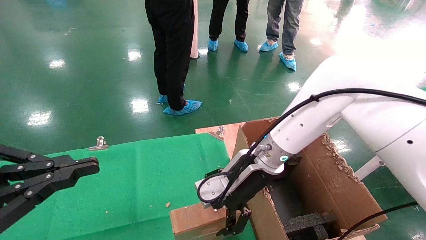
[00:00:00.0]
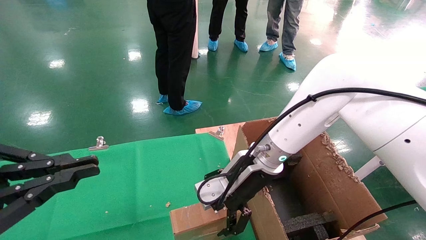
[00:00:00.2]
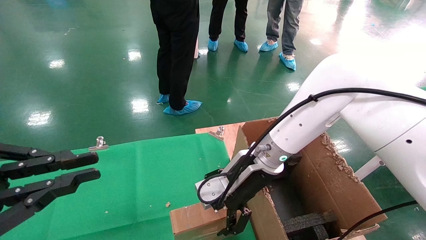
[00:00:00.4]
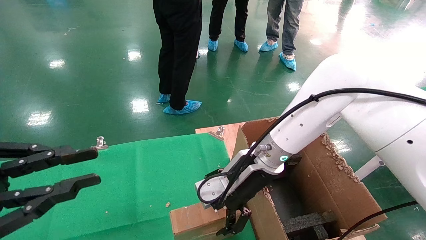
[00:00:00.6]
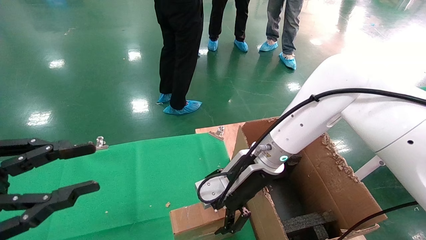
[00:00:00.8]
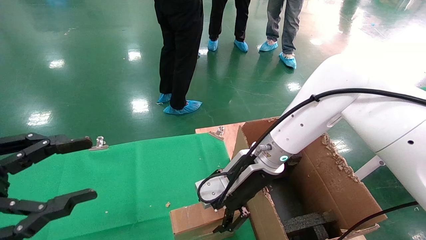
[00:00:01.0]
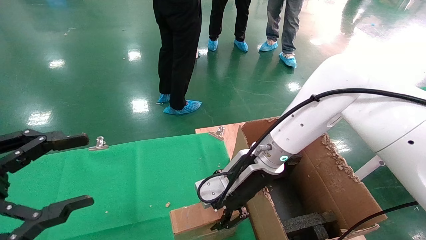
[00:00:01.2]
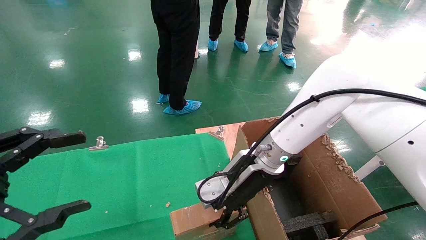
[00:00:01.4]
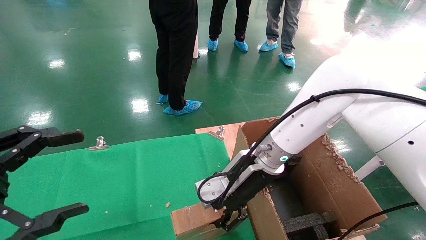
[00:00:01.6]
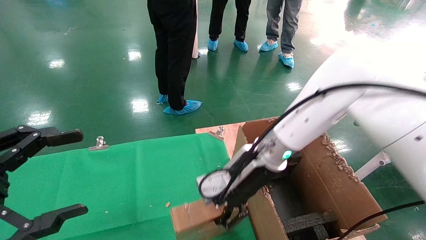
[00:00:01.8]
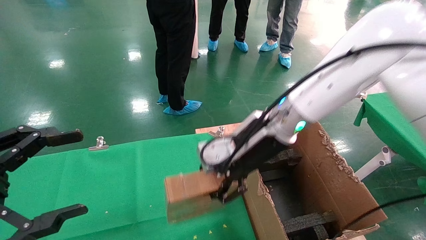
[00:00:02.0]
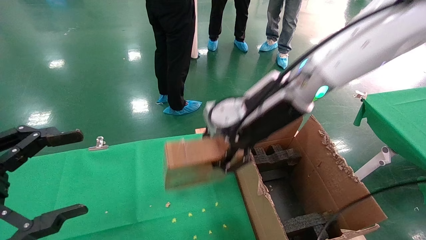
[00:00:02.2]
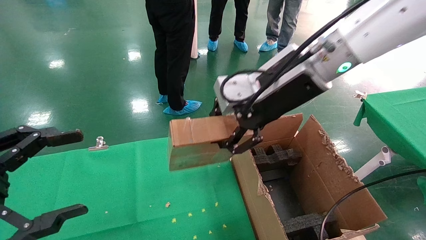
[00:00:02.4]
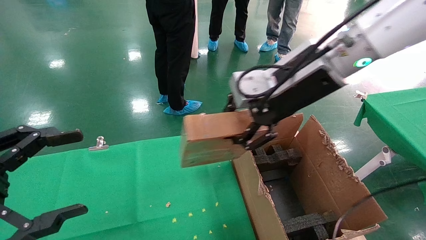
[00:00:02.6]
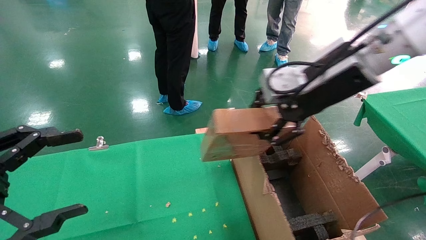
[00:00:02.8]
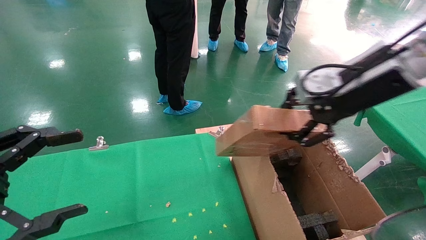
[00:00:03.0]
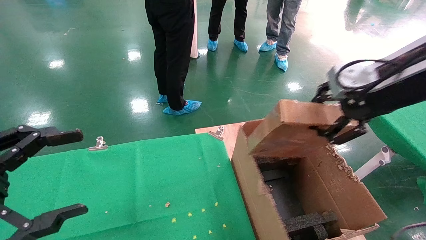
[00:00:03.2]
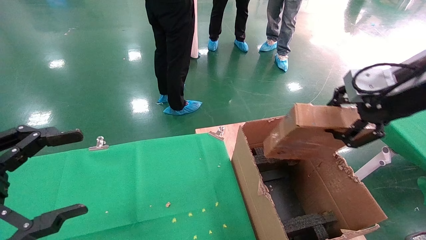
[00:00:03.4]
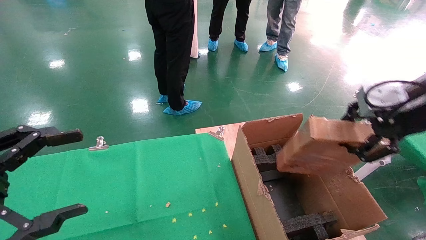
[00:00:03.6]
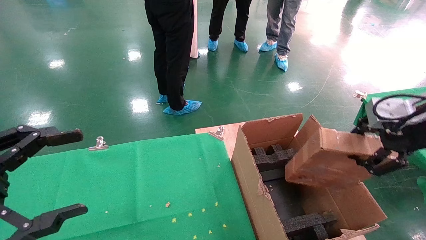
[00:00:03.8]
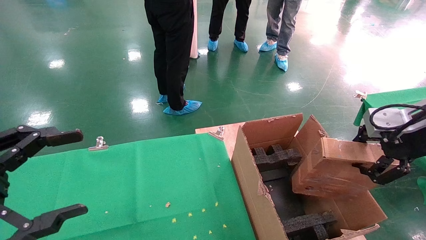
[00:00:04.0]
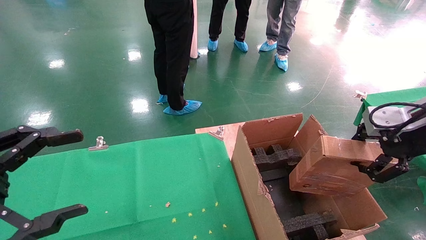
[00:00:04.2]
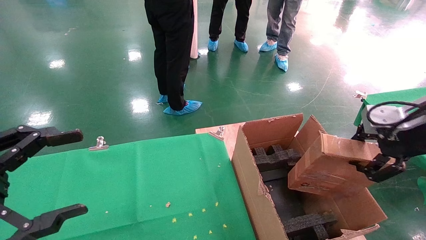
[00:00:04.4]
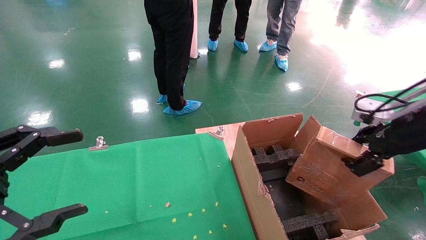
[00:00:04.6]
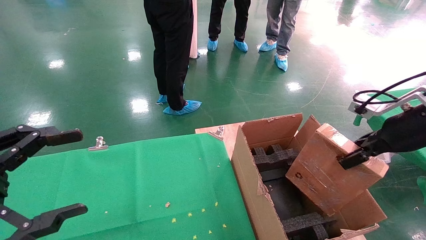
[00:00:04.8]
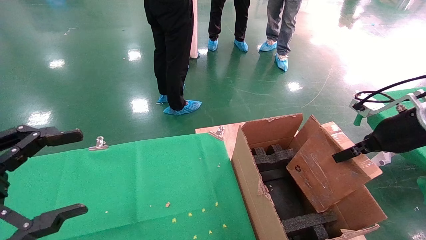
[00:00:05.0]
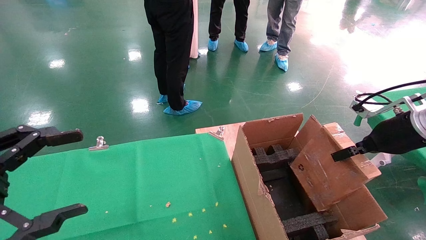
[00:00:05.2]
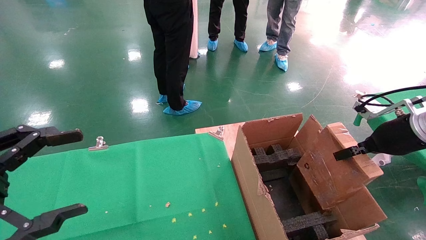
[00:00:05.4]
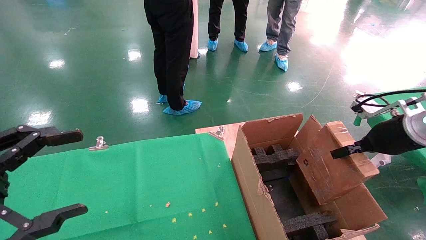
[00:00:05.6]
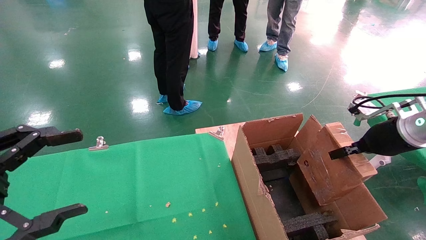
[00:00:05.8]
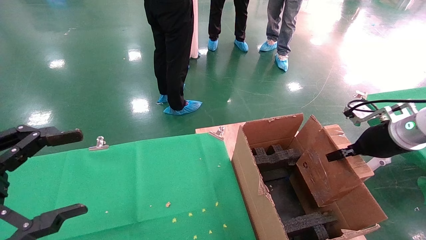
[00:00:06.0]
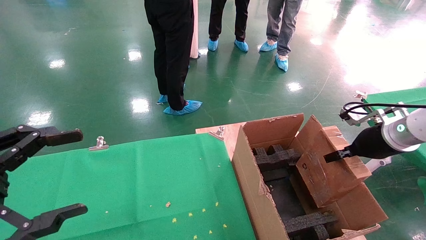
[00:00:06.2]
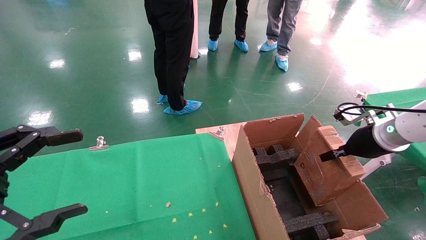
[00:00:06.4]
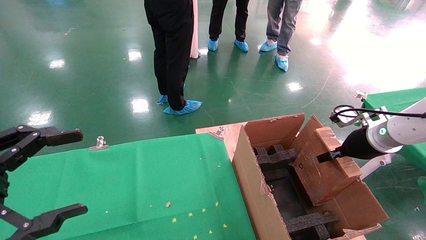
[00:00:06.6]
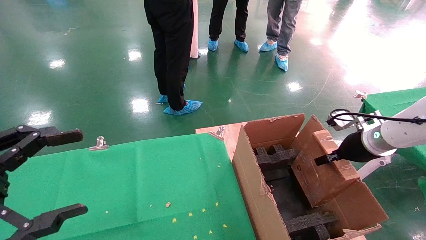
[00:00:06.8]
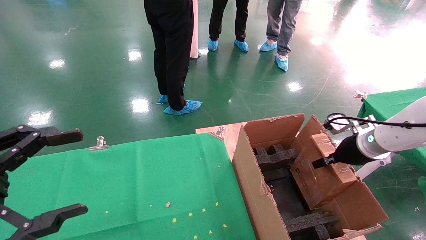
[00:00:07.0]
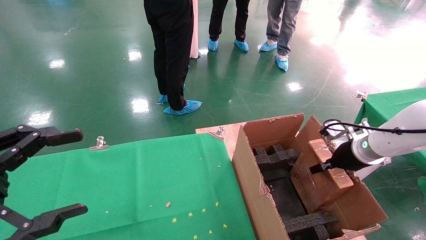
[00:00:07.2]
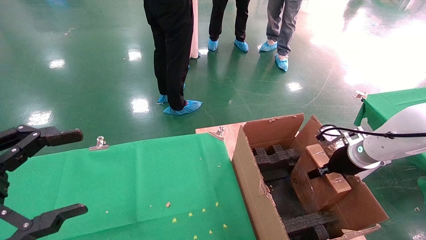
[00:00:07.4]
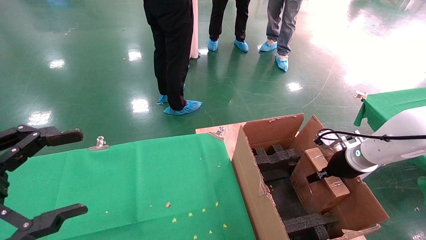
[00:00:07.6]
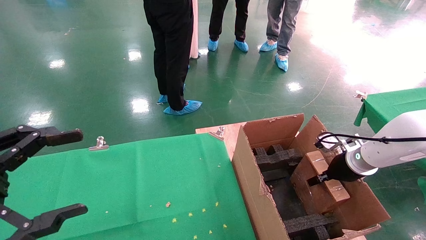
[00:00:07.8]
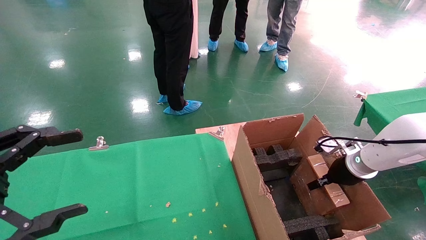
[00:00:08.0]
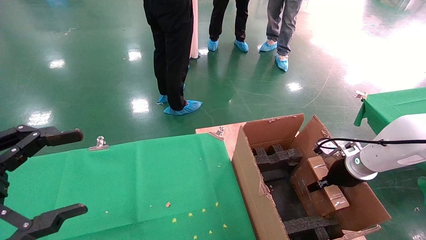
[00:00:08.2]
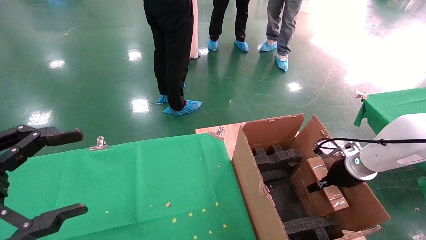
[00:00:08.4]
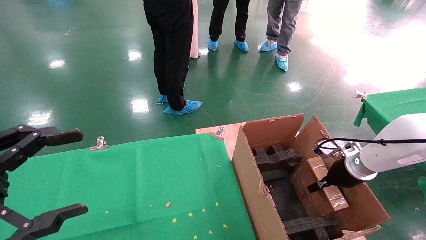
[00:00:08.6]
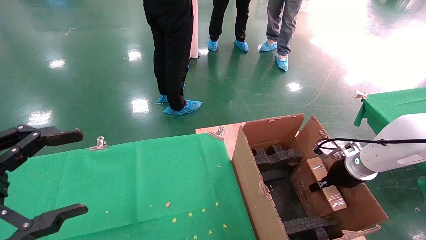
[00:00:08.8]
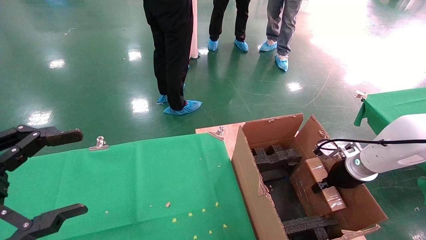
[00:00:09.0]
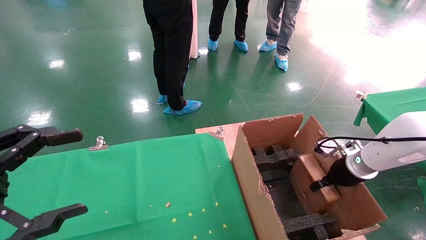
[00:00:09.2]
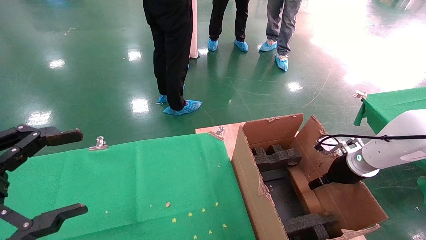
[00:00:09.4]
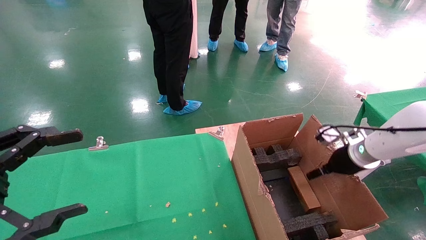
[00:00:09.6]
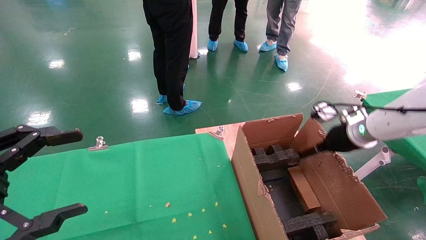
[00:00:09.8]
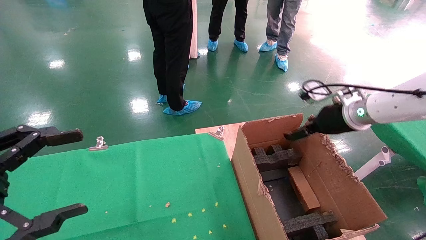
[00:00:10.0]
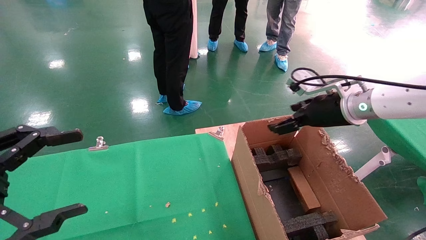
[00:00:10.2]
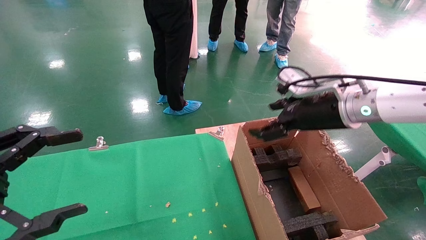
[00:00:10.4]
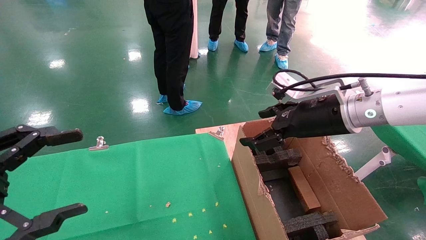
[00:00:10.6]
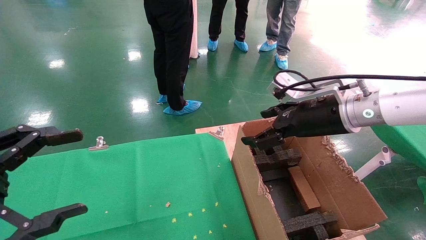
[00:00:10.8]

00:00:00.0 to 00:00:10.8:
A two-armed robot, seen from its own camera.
Task of the whole recording: using a robotic arm to pick up a cardboard box and palace it the carton.
Step, 00:00:01.6 to 00:00:09.8: Place the mouse and the power cord paper box into the container.
00:00:00.0 to 00:00:01.6: The left gripper opens its fingers, while the right gripper closes up.
00:00:01.6 to 00:00:03.0: The right gripper goes roughly 25 cm upward and to the right.
00:00:03.0 to 00:00:04.6: The right gripper is displaced to the right and downward by roughly 15 cm.
00:00:04.6 to 00:00:06.2: The right gripper goes about 10 cm forward and downward.
00:00:06.2 to 00:00:07.8: The right gripper goes roughly 10 cm downward.
00:00:07.8 to 00:00:09.2: The right gripper opens up.
00:00:09.2 to 00:00:10.8: The right gripper shifts roughly 20 cm upward and to the left, and opens up.

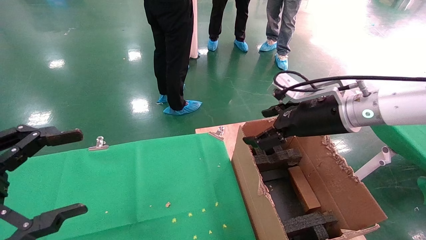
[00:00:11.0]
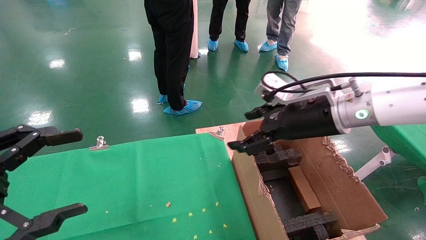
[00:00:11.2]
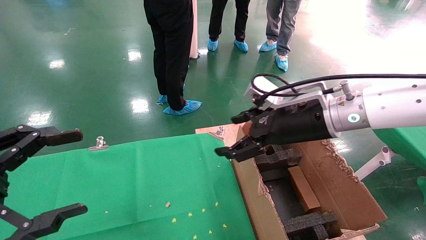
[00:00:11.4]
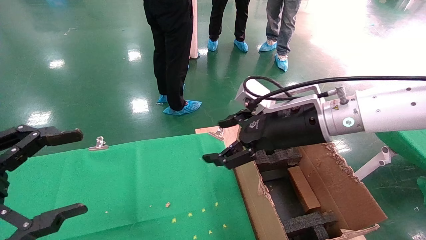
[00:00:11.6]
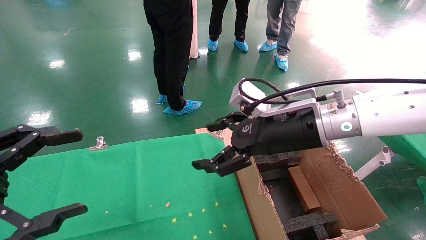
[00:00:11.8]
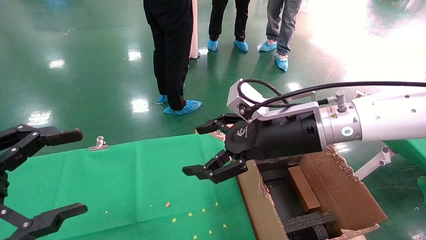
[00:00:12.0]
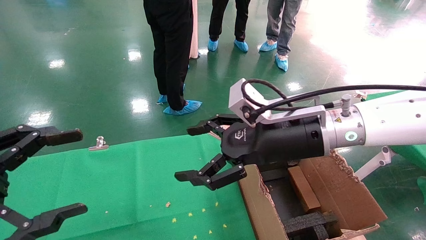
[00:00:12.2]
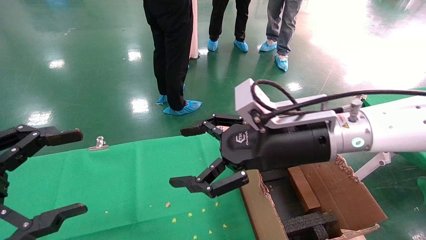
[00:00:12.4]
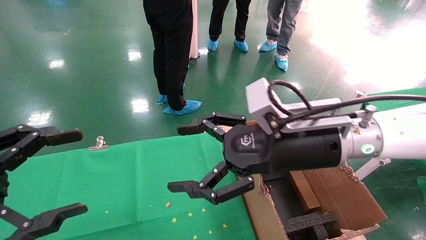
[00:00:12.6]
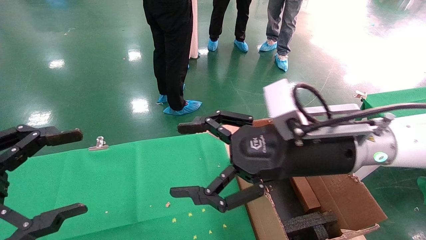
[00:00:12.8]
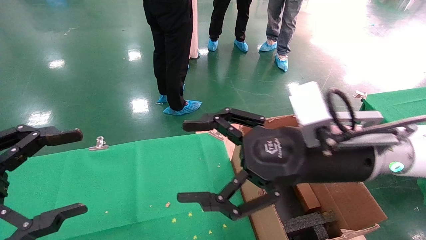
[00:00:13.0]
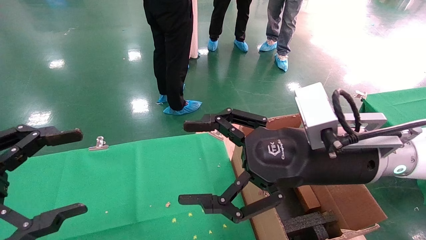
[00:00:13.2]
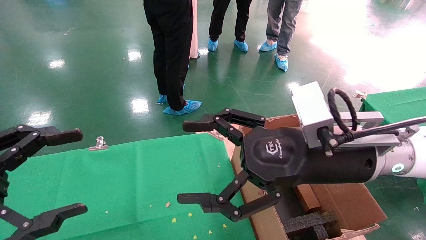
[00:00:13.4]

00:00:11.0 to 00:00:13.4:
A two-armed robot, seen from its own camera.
Task of the whole recording: using a robotic arm to pick up a cardboard box and palace it the carton.
00:00:11.0 to 00:00:12.2: The right gripper is displaced to the left by about 10 cm.
00:00:12.2 to 00:00:13.4: The right gripper shifts by about 5 cm.
